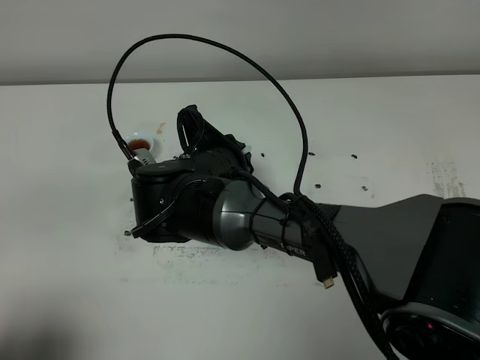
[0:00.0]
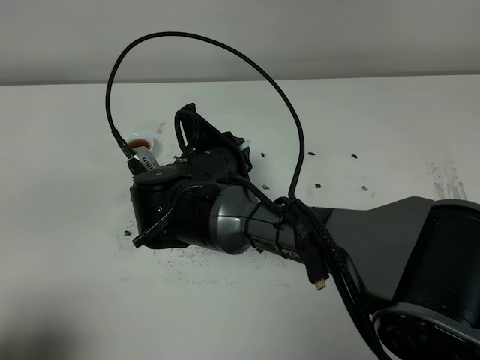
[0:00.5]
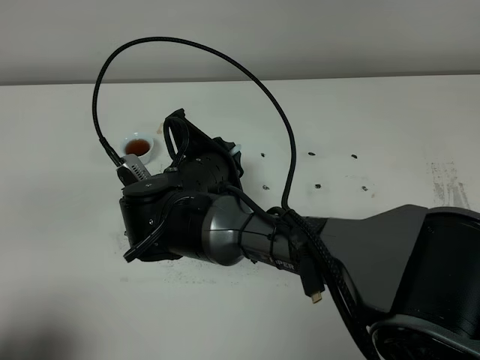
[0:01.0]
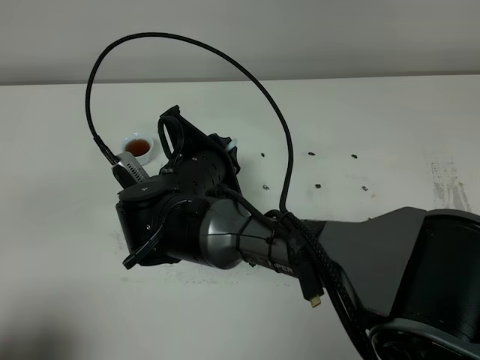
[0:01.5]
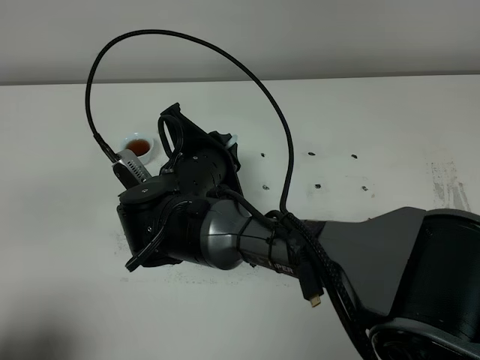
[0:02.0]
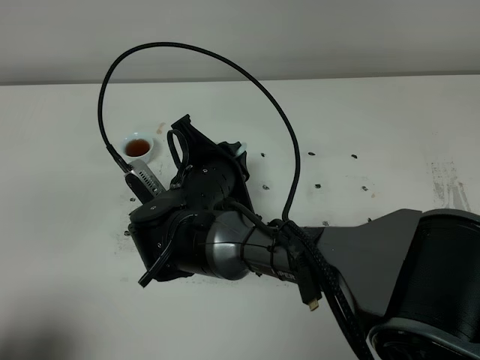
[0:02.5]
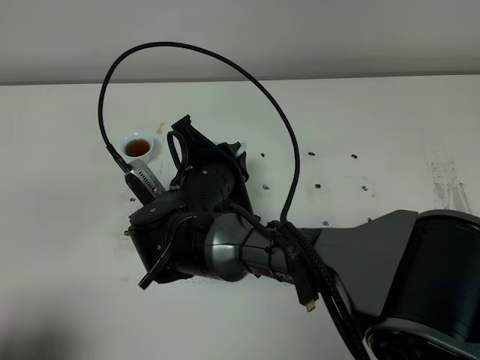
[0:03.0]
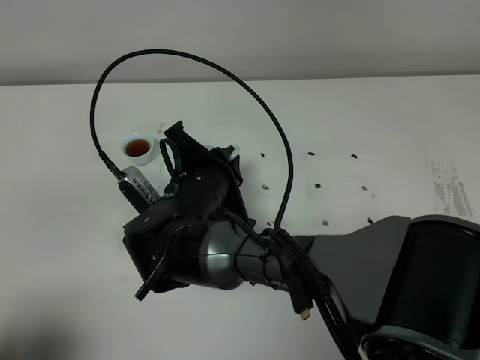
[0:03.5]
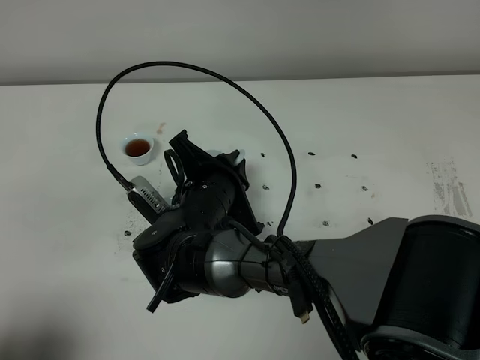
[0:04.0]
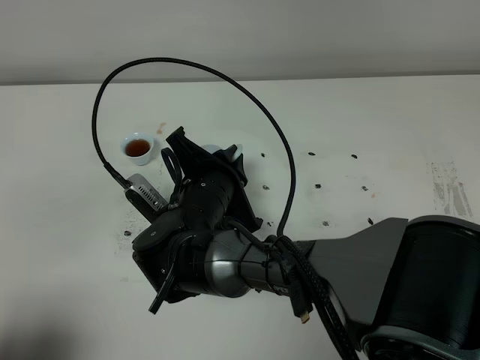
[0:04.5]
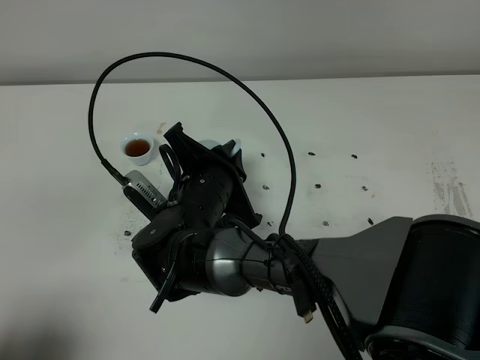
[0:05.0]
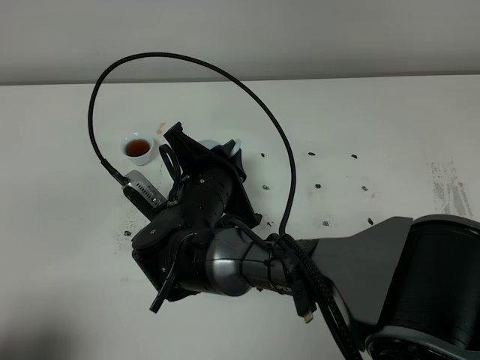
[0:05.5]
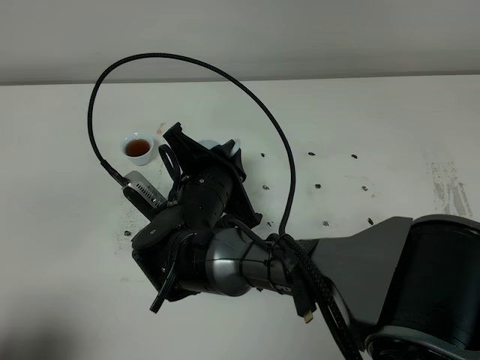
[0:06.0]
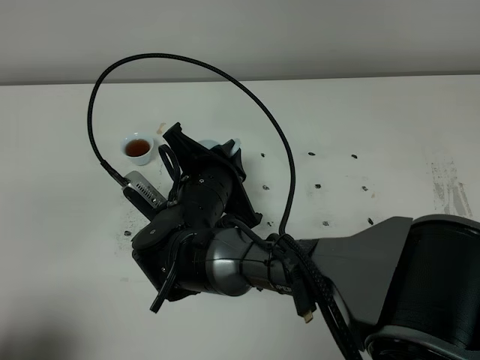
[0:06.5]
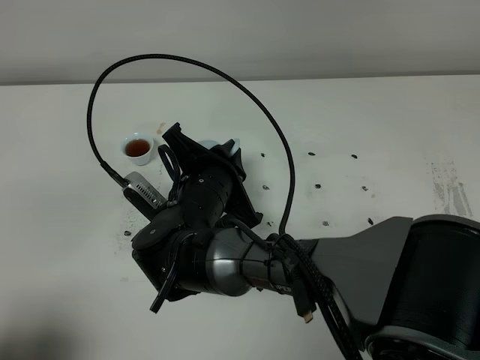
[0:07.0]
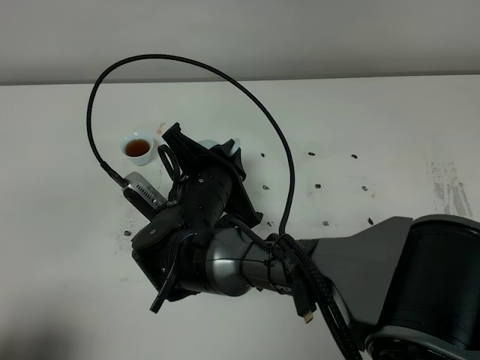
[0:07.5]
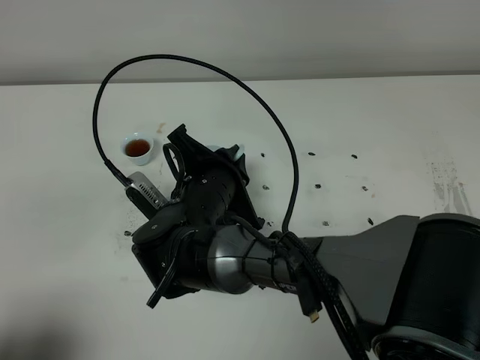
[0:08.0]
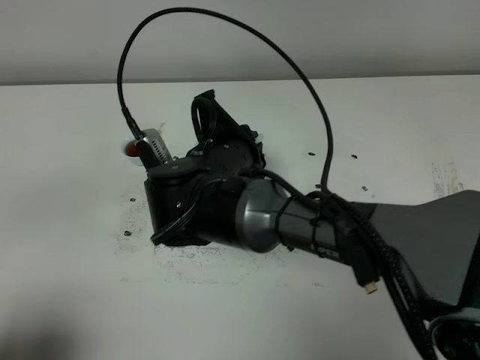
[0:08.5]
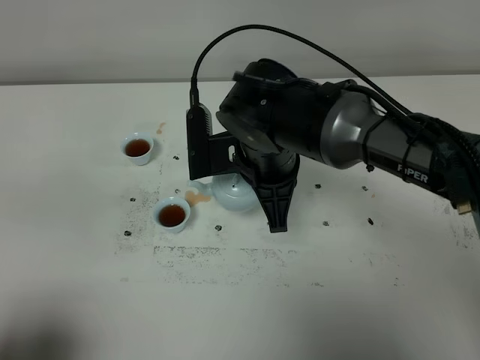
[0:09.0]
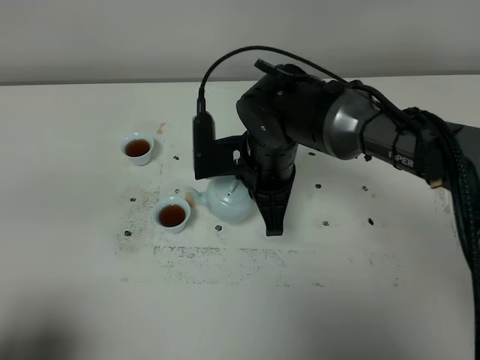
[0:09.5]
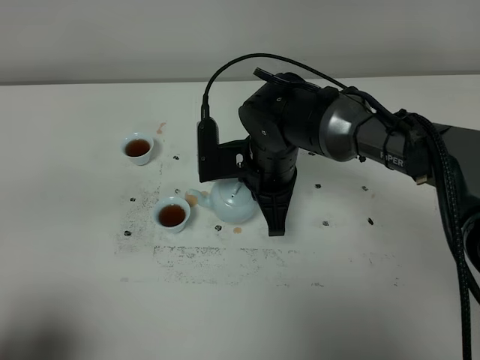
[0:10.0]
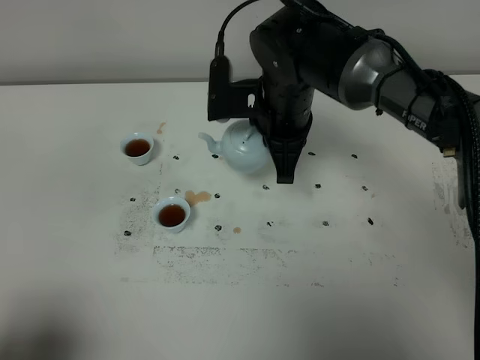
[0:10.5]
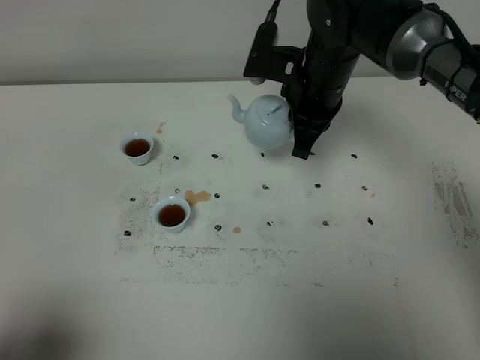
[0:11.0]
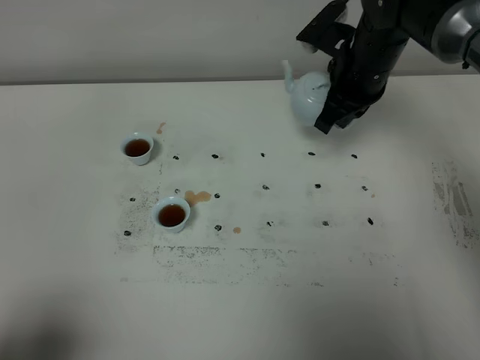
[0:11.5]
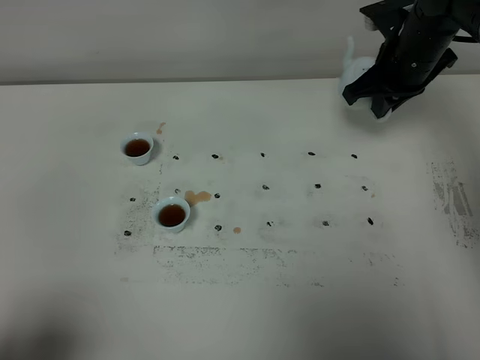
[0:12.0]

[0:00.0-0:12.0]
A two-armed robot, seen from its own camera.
Task of the whole recording: grasp the blue porcelain teapot and pour the tea into the two blue porcelain teacups one by one, put the blue porcelain teapot back in its original place.
Step, 0:00.0 to 0:09.0: Pour tea into the teacup with the right gripper.
0:00.0 to 0:04.0: The grippers stay close to where they were, moving slightly.
0:04.0 to 0:08.0: Neither gripper changes place.
0:08.0 to 0:10.0: The right gripper travels to the right and forward by approximately 10 cm.
0:10.0 to 0:12.0: The right gripper is displaced to the right and forward by some 20 cm.

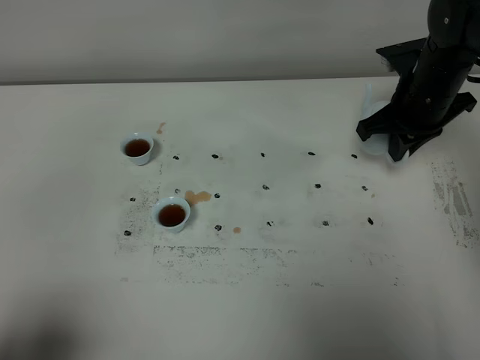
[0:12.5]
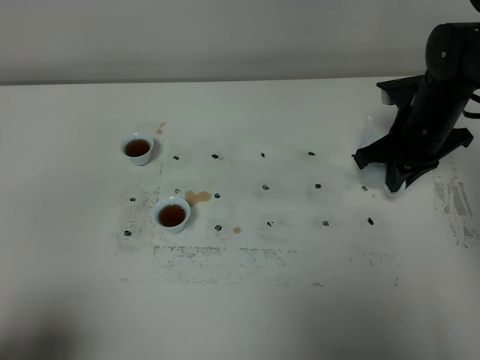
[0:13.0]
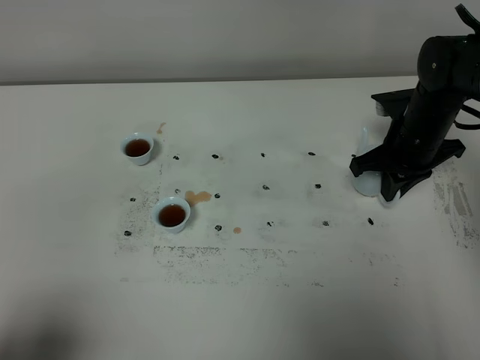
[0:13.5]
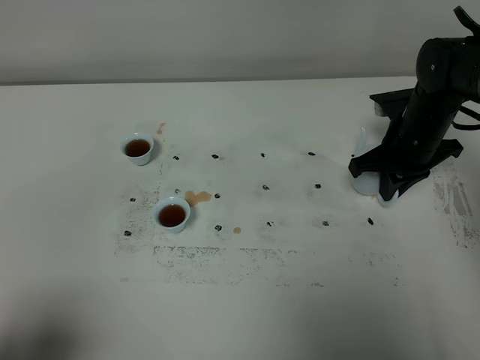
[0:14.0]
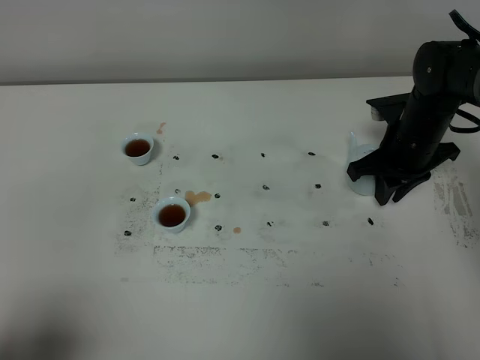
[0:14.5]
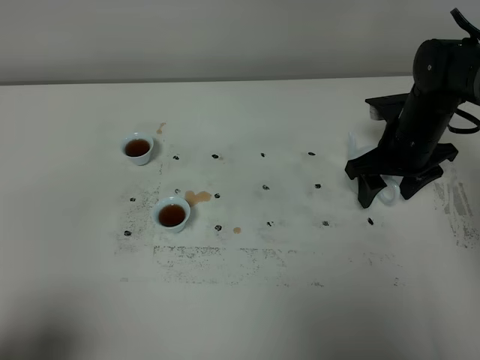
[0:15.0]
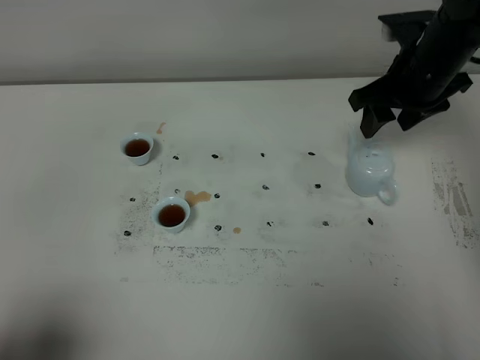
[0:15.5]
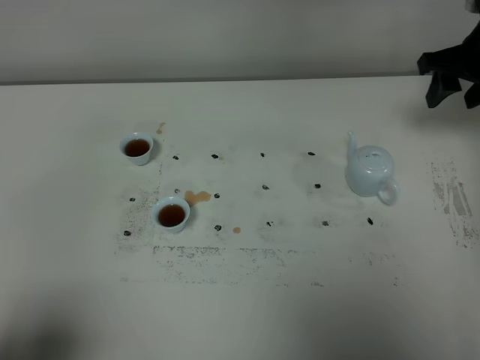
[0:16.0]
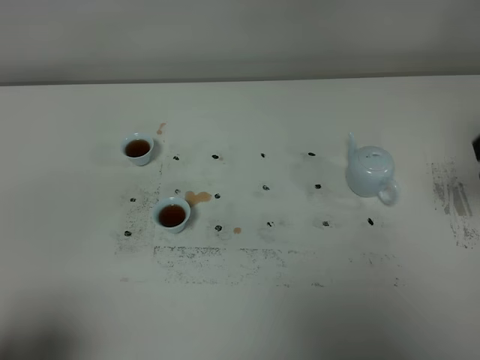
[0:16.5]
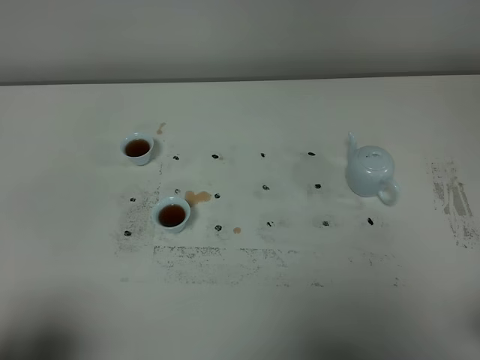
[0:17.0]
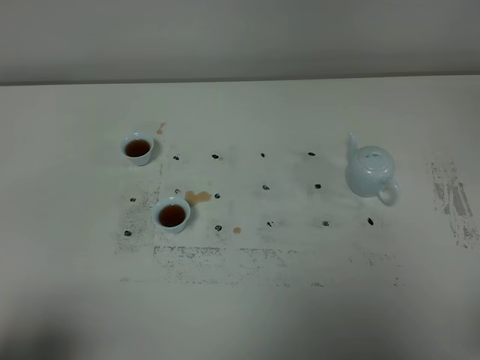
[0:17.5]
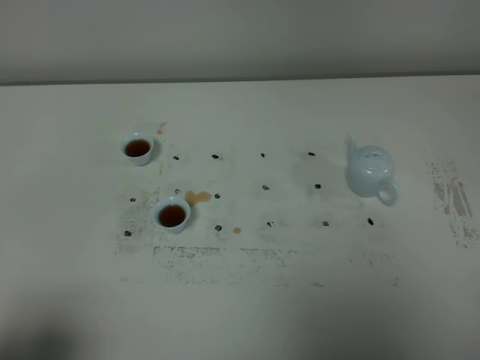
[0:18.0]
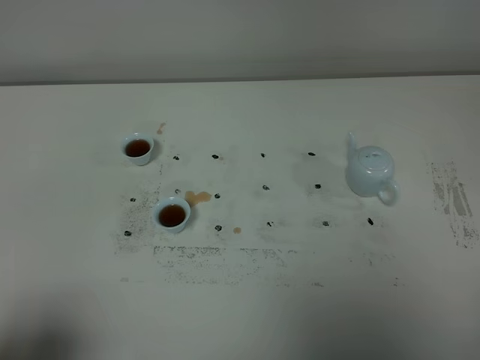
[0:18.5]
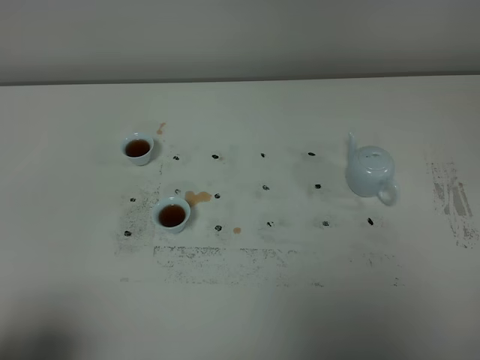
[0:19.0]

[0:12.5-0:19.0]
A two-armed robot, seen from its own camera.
Task of the whole recording: grasp the blue porcelain teapot and pour the tea into the two blue porcelain teacups one by one, put the blue porcelain teapot back in its original place.
0:12.5 to 0:14.5: The right gripper is displaced downward by about 5 cm.
0:14.5 to 0:17.0: The right gripper travels backward by about 30 cm, and opens its fingers.
